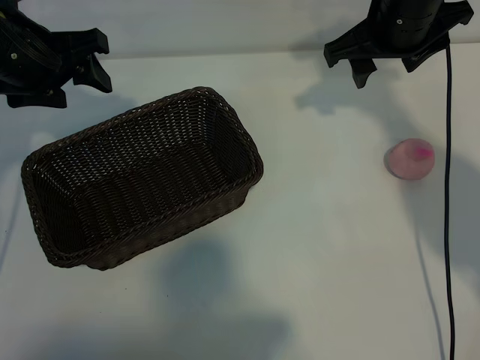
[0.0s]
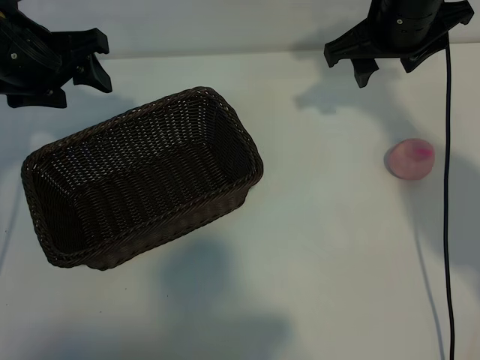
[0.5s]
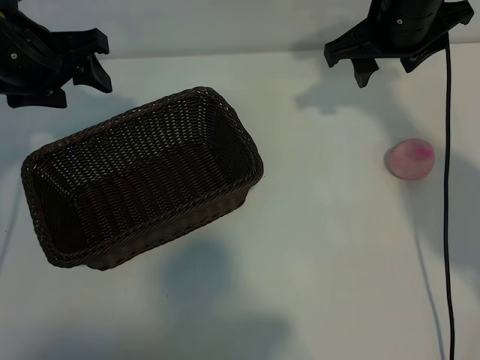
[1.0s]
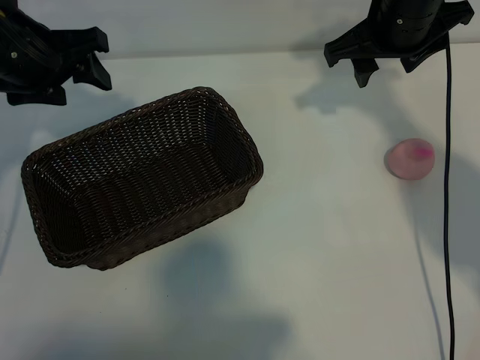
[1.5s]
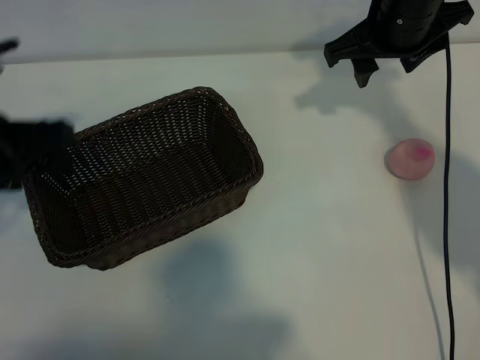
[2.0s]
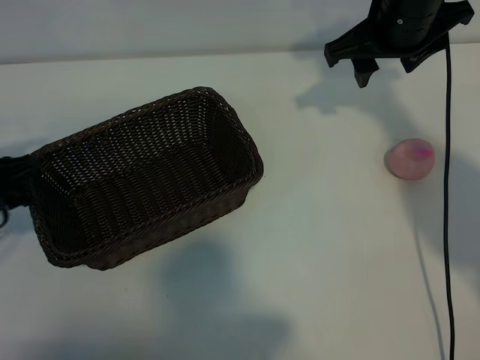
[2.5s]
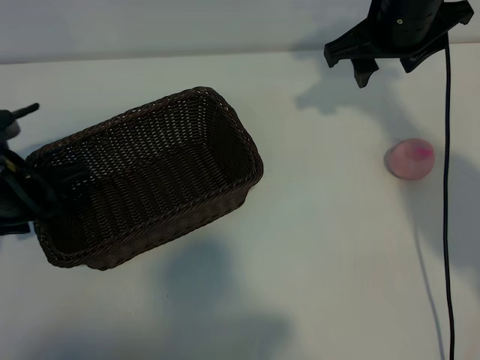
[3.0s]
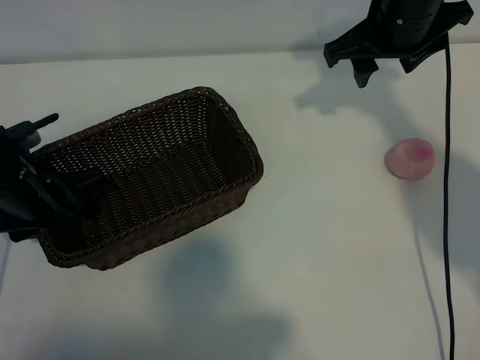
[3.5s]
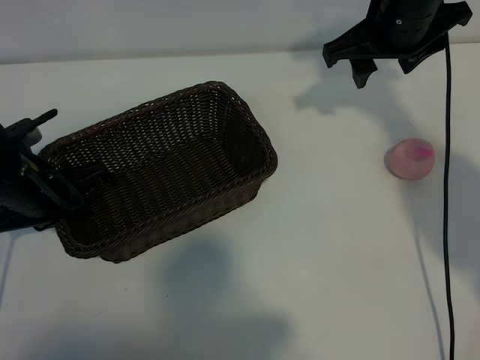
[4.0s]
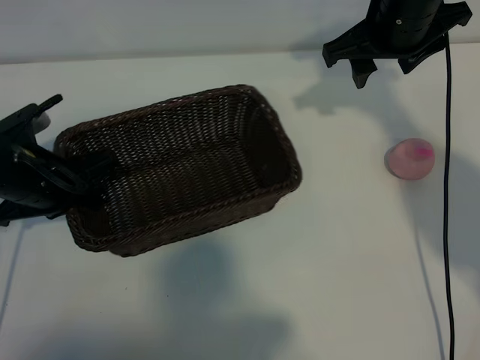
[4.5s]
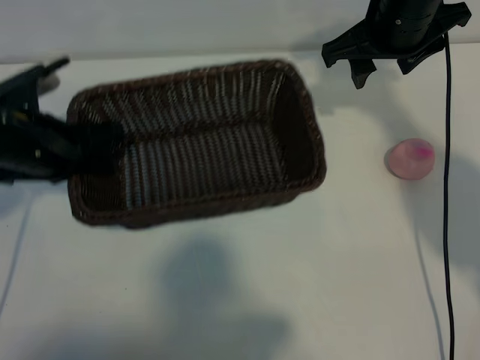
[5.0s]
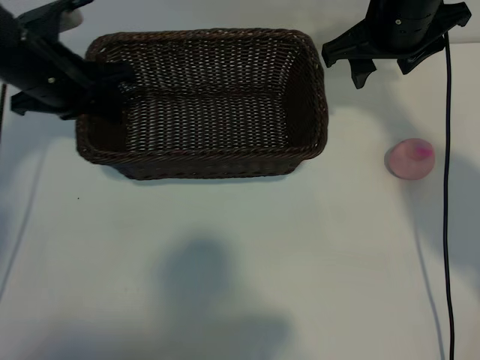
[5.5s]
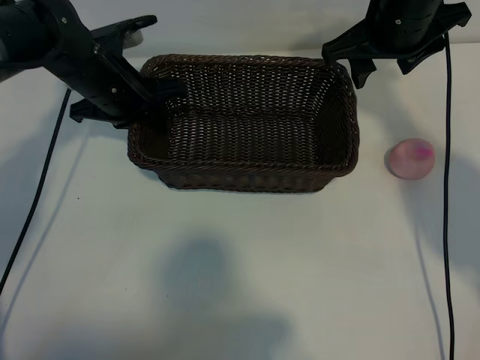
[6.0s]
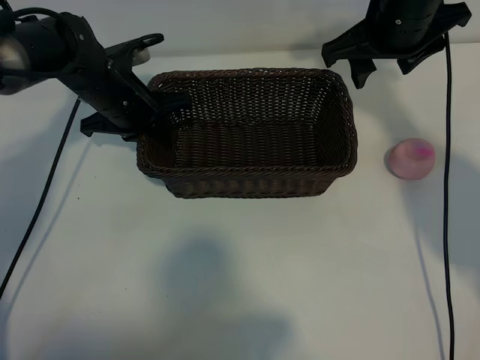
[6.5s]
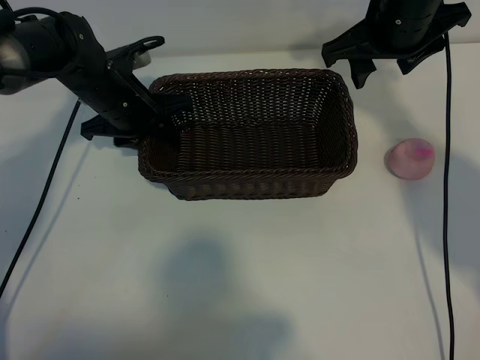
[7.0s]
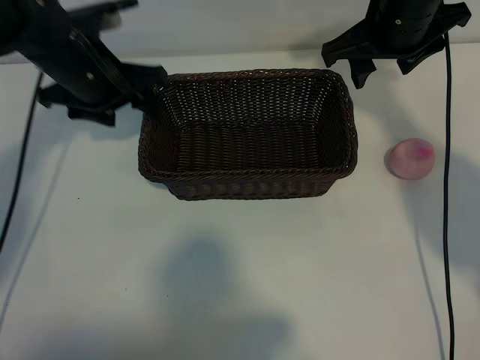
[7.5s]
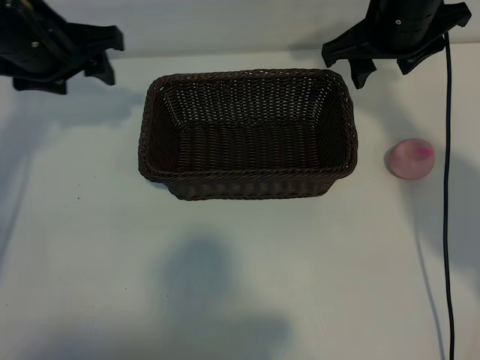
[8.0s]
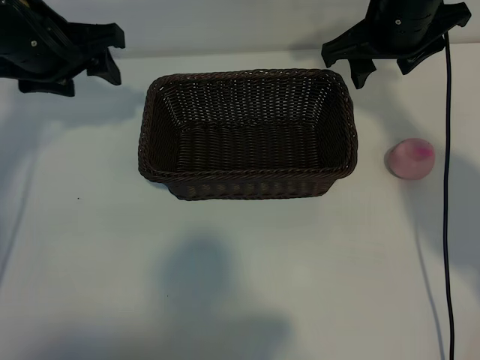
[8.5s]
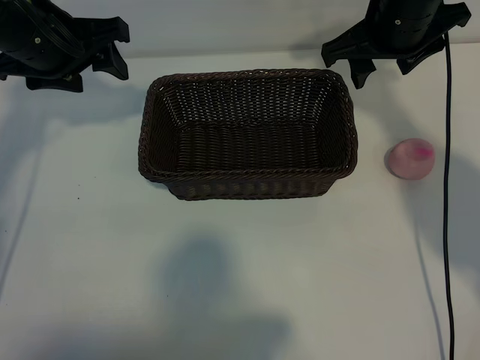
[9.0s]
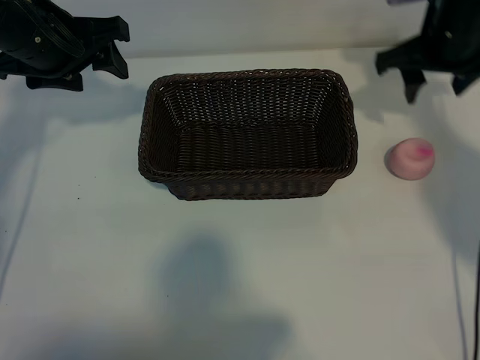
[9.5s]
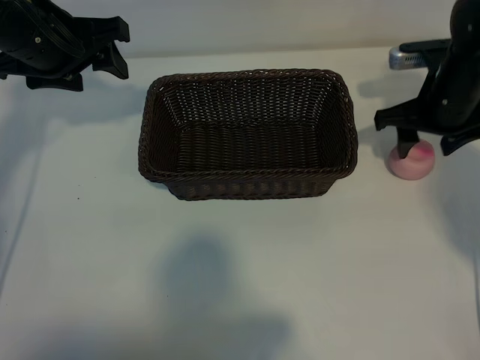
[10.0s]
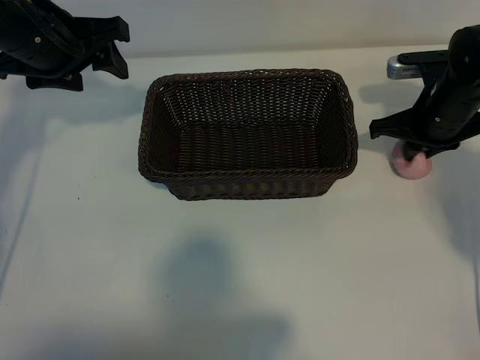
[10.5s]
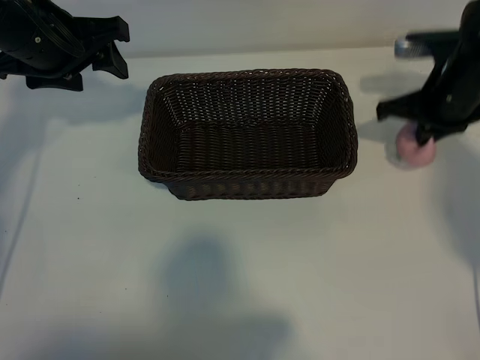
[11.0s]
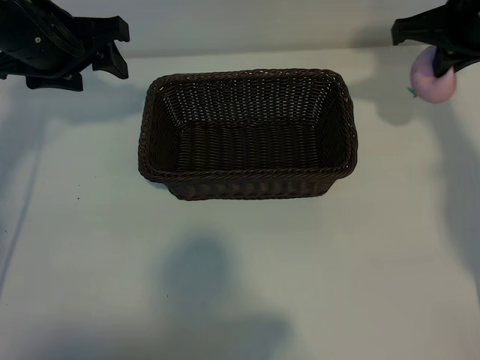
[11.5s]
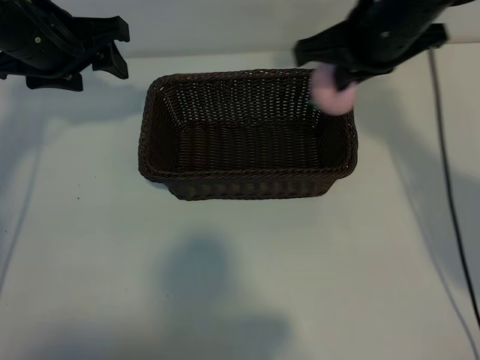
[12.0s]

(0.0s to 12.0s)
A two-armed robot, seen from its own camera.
Task of the whole recording: pick up the peach and put it into the basket.
Step, 1.5s - 3.5s: Grasp the basket with left gripper.
Step, 4.0s - 7.0s: Place the basket in the center of view with left gripper.
Step, 7.5s - 10.5s: Grasp the peach with right gripper.
